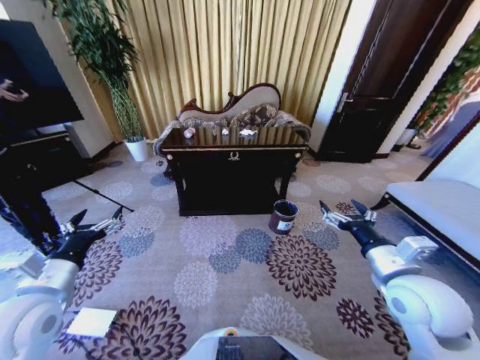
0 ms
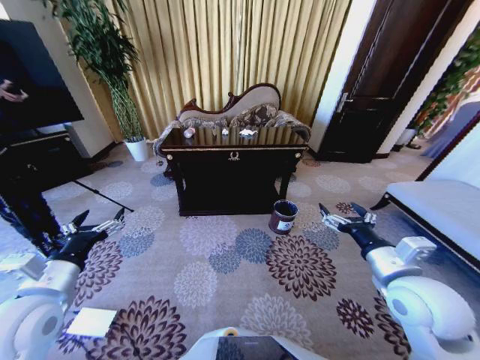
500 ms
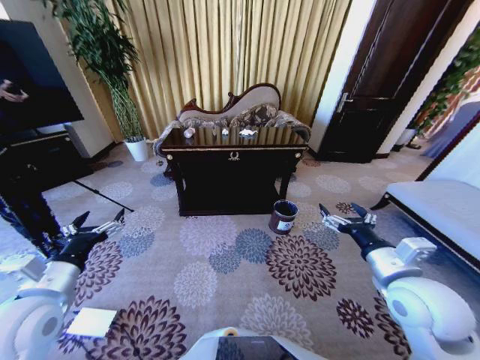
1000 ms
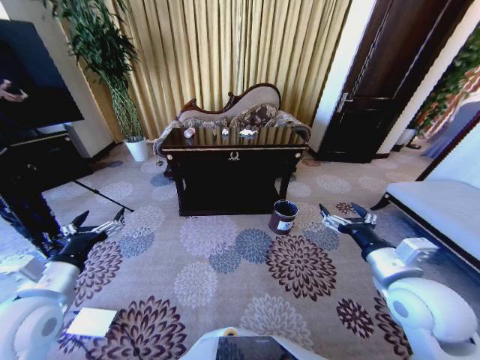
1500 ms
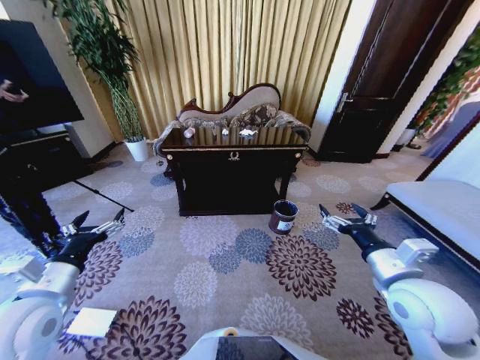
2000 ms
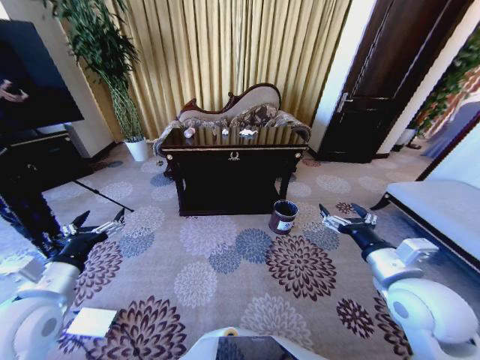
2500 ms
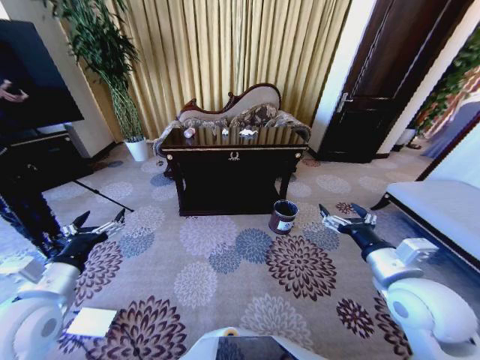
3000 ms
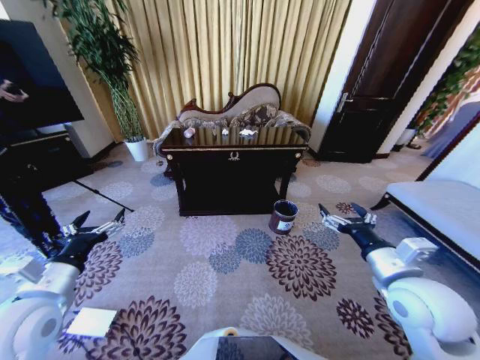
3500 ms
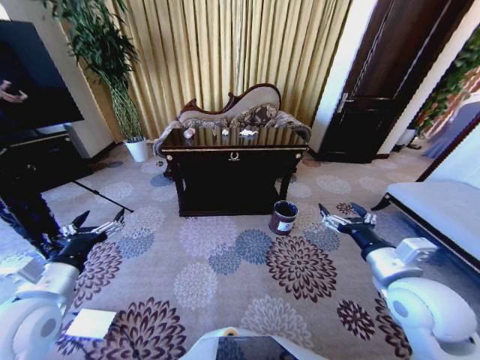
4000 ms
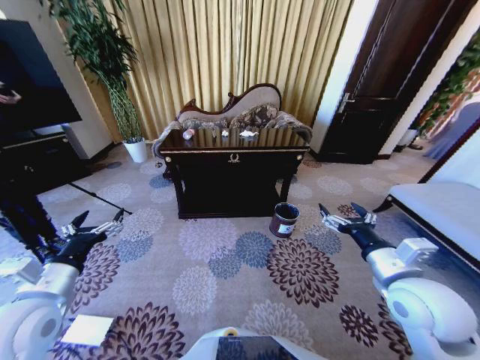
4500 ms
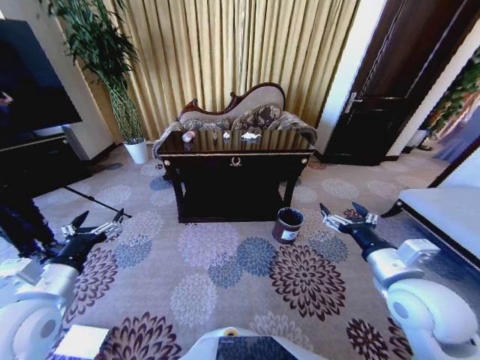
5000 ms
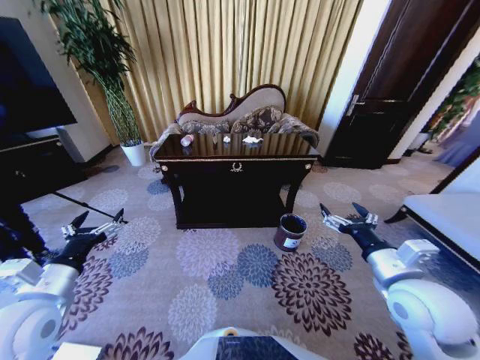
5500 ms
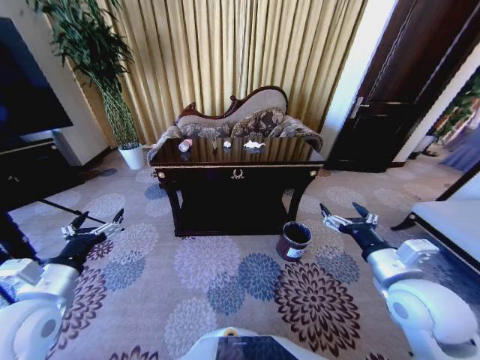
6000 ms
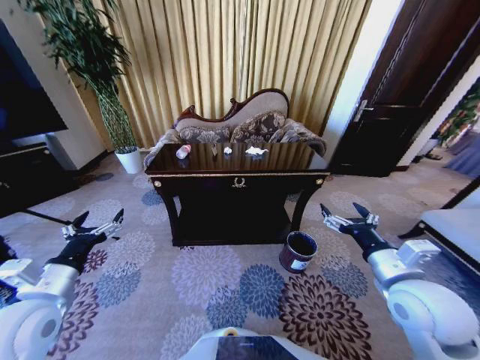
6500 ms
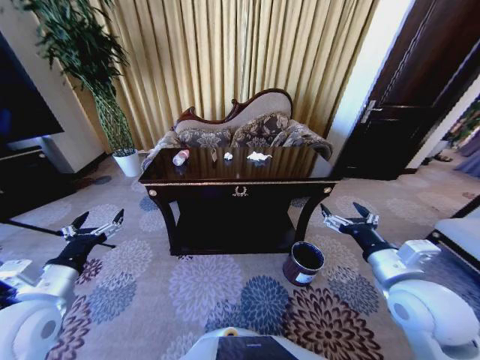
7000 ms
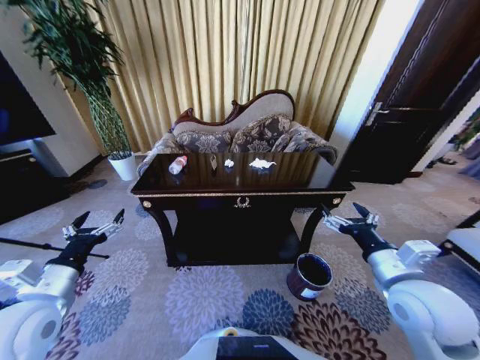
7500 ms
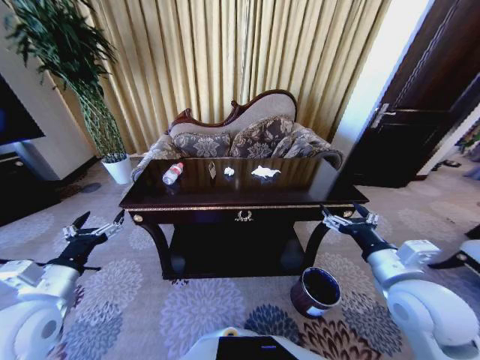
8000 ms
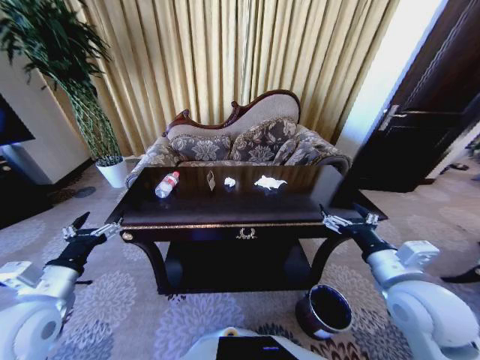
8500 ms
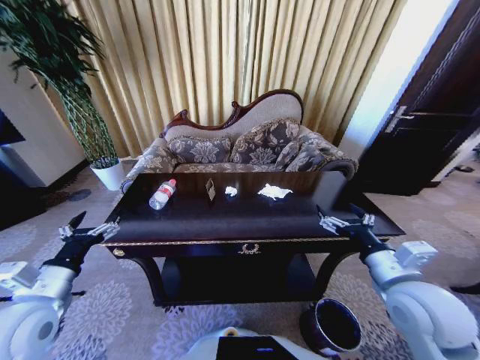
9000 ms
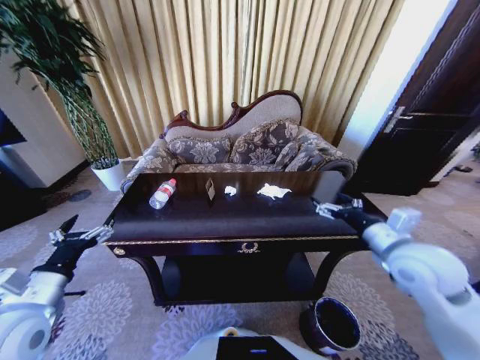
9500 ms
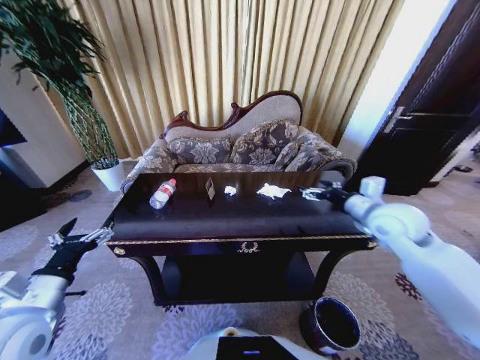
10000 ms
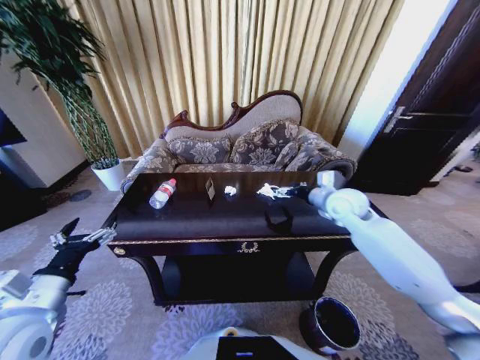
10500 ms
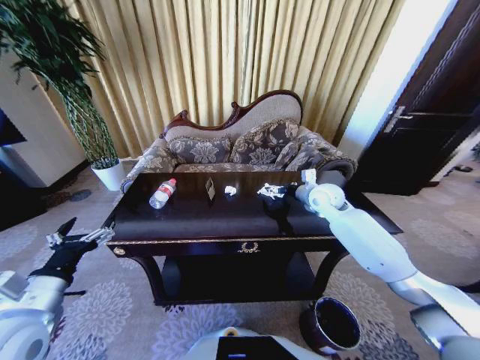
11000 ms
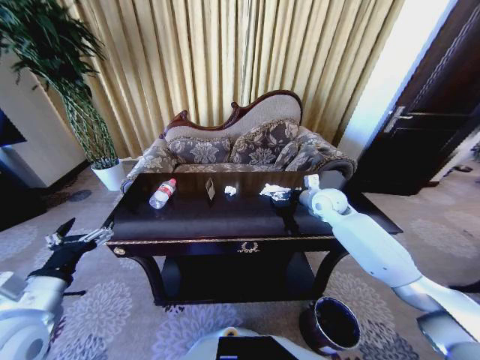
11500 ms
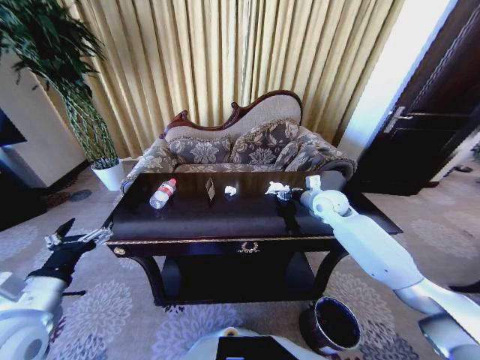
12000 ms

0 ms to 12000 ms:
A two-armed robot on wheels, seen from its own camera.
Task of the whole recording: Move to the front of the table and place the trash on the table into the trash bin.
2000 ms to 4000 ms: Both grippers stay put.
8000 ms to 10000 ms: The right gripper travels forward by approximately 15 cm.
10000 ms to 12000 ms: The right gripper travels forward, downward and to the left by roughly 15 cm, and closes its fingers.

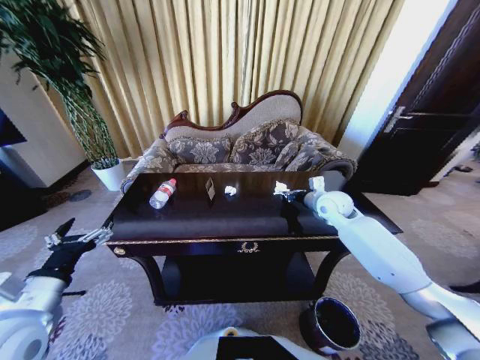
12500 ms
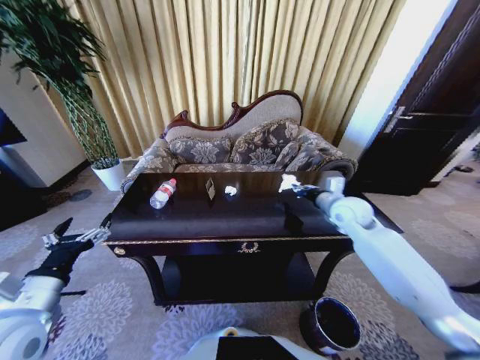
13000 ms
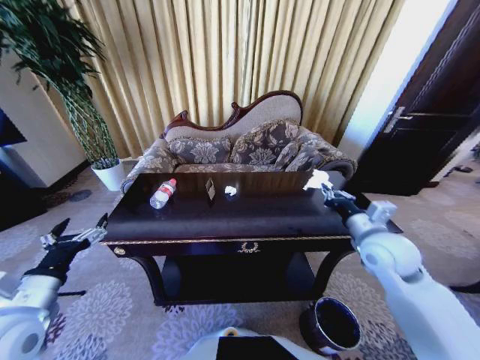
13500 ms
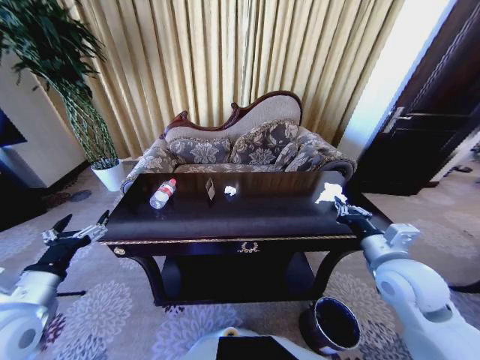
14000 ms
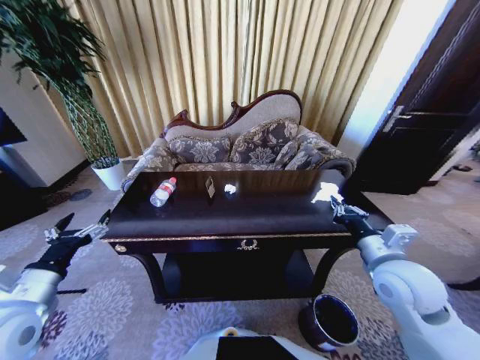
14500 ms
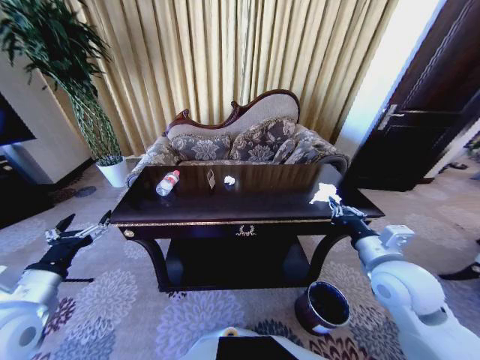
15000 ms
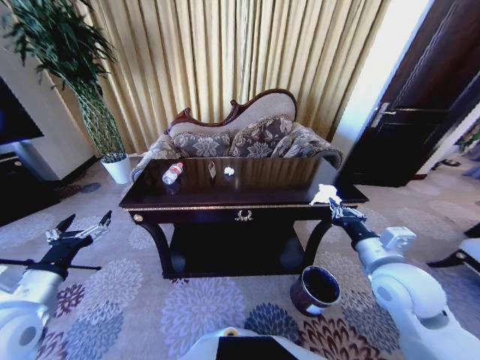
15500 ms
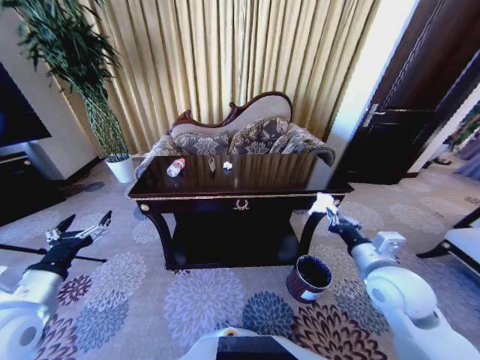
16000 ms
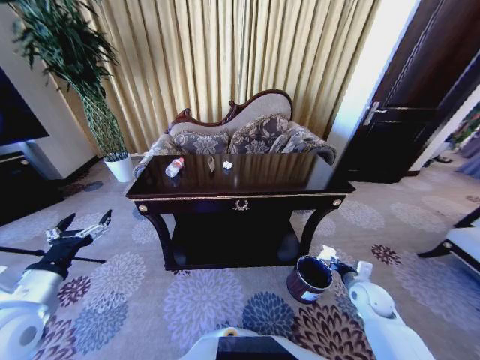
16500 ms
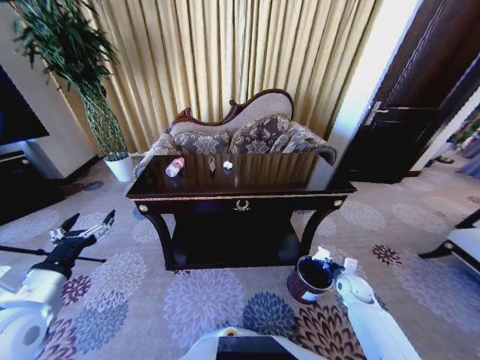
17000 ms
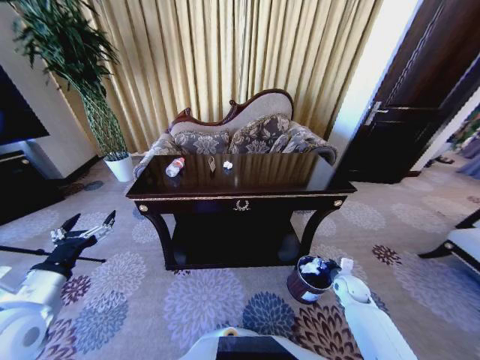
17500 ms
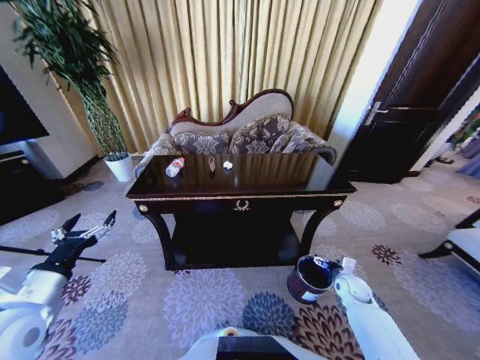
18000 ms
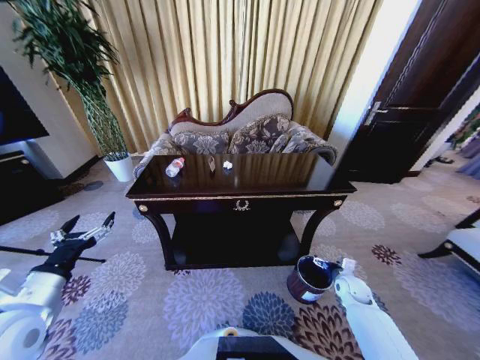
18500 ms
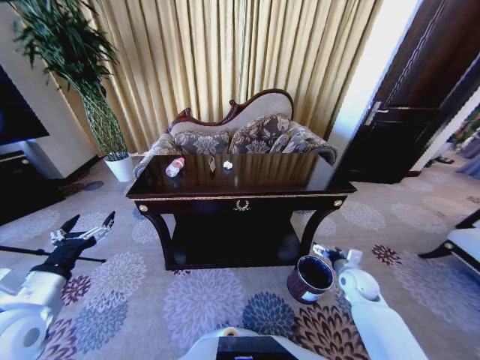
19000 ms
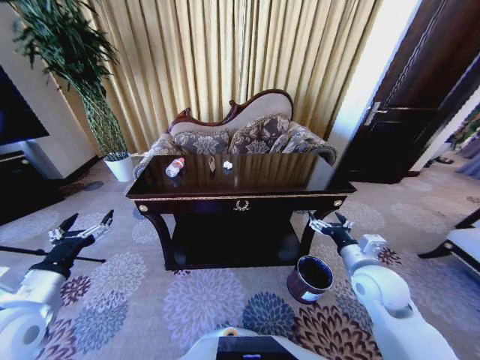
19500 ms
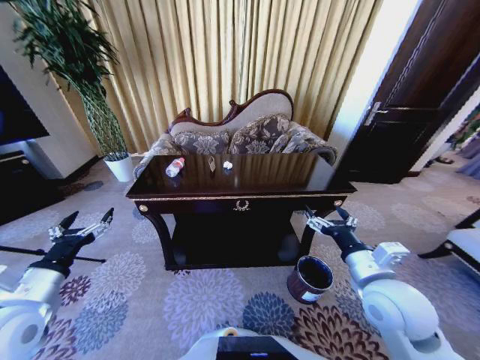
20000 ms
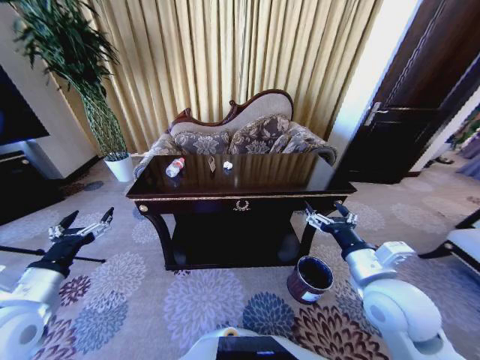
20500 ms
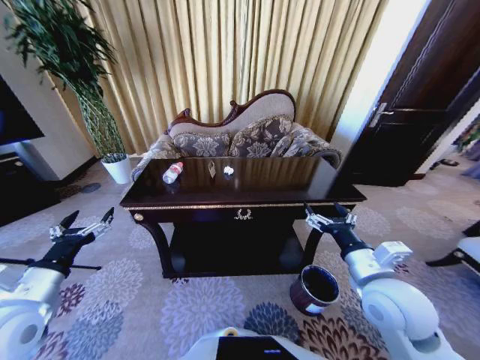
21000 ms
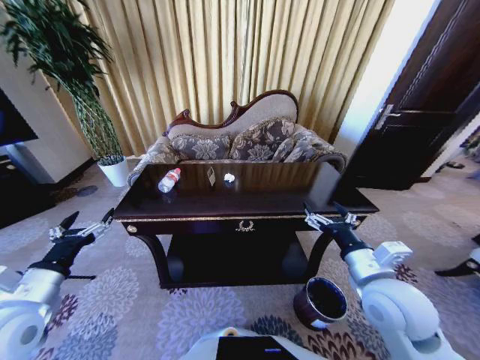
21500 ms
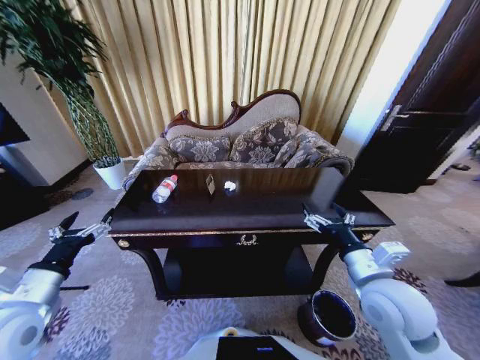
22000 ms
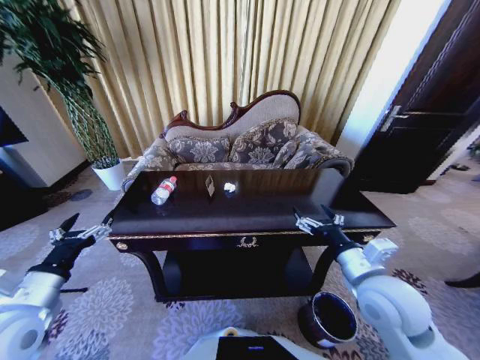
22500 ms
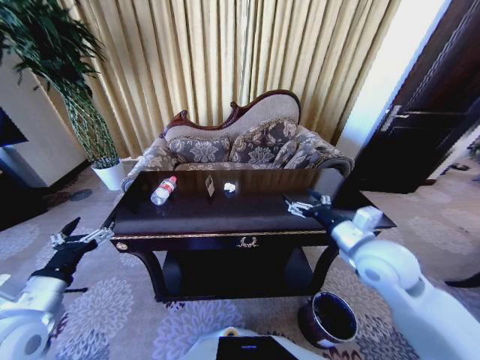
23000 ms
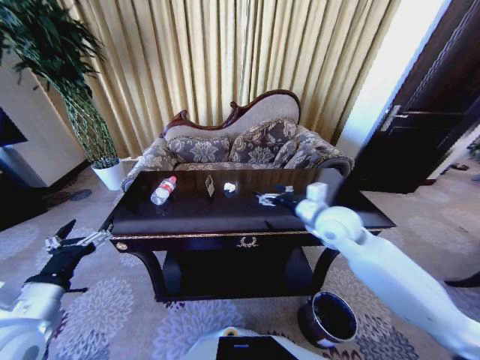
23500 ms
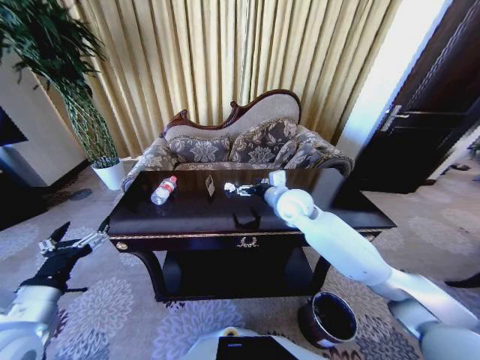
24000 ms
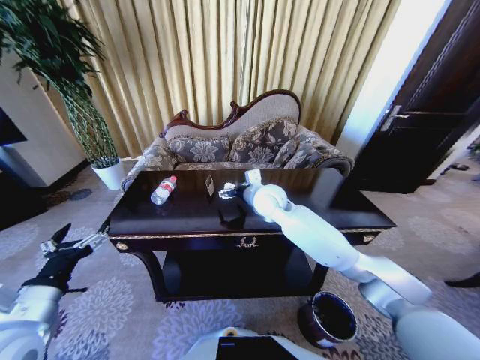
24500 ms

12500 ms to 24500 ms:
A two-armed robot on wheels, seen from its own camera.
Task of the whole recording: Move to the front of the table and place the trash on the table into the trash bin.
12500 ms to 14500 ms: The right gripper goes approximately 25 cm backward.
14500 ms to 16500 ms: The right gripper shifts some 20 cm downward.
16500 ms to 18500 ms: The right gripper is displaced downward by approximately 5 cm, and opens up.
18500 ms to 20500 ms: The right gripper moves upward and to the left, about 30 cm.
22500 ms to 24500 ms: The right gripper is displaced forward and to the left by some 30 cm.

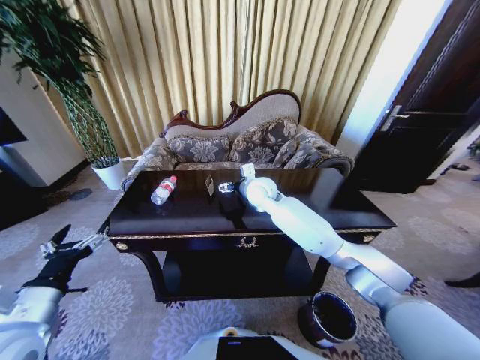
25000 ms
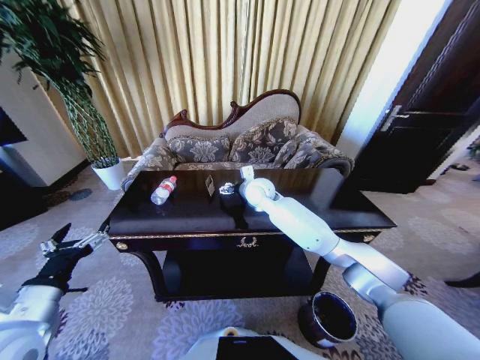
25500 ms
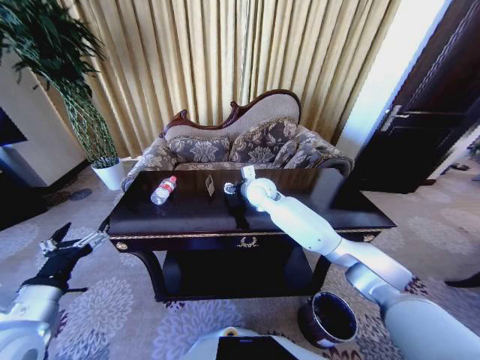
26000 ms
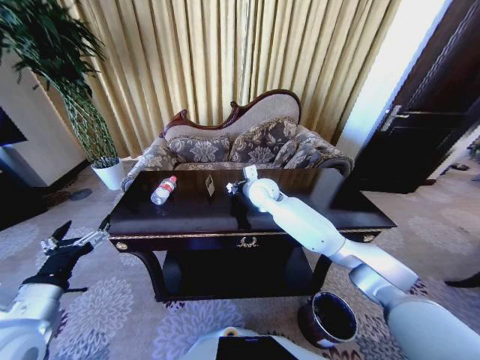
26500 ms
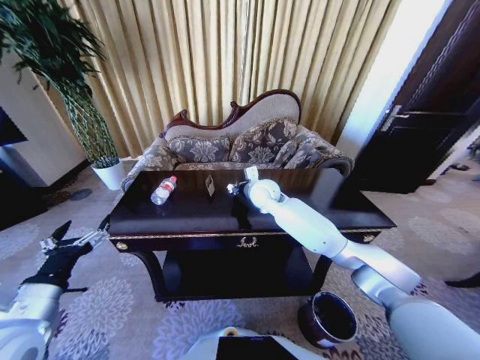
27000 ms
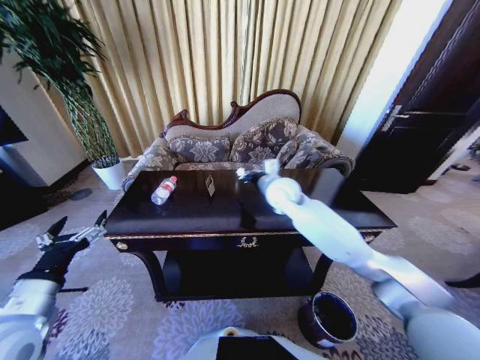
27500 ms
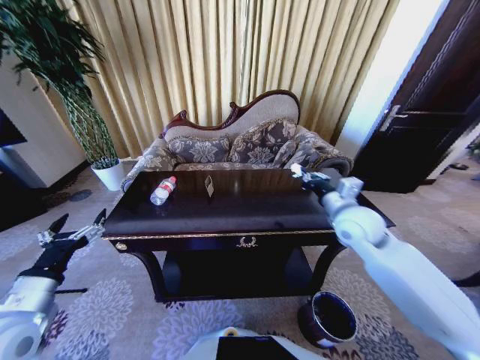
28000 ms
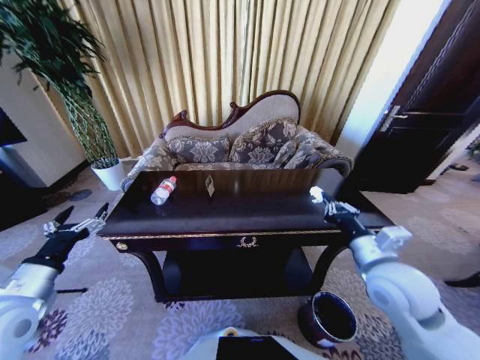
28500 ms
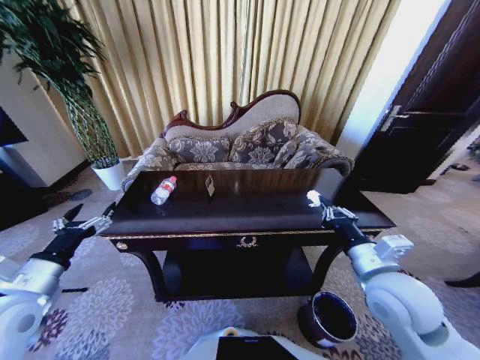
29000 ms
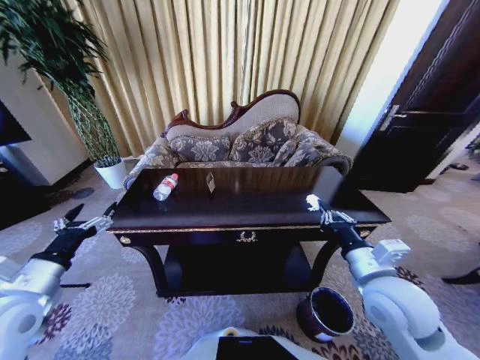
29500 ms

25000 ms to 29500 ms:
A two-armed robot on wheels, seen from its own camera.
Task of the whole recording: Move to the front of the table and place the trash on the table into the trash bin.
25000 ms to 27000 ms: The right gripper closes.
27000 ms to 29500 ms: The right gripper shifts some 35 cm backward and to the right; the left gripper ends up roughly 5 cm from where it was.
